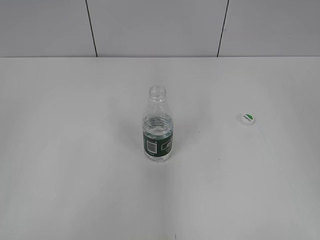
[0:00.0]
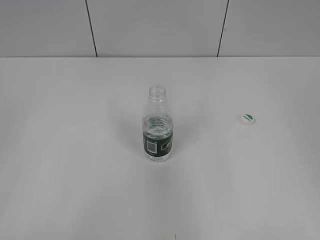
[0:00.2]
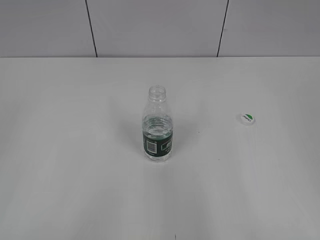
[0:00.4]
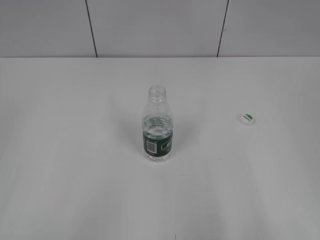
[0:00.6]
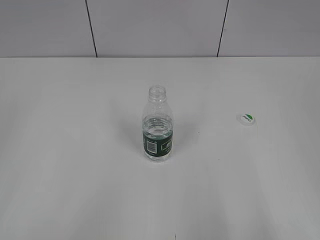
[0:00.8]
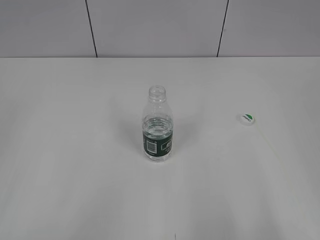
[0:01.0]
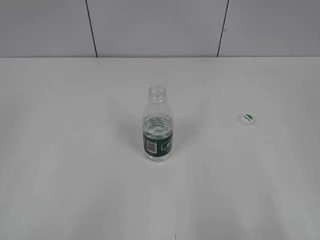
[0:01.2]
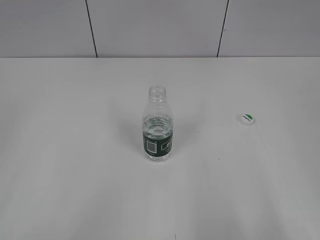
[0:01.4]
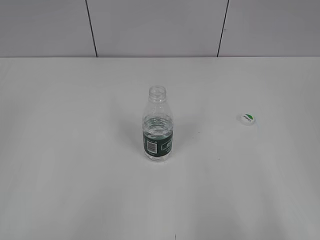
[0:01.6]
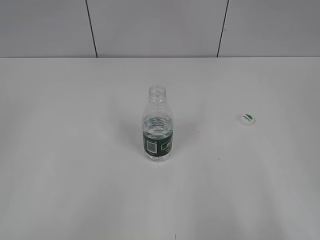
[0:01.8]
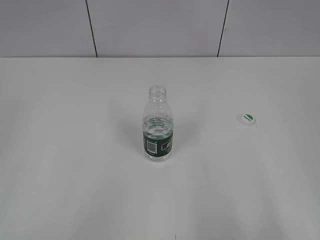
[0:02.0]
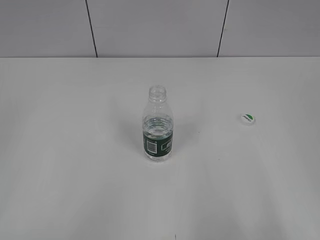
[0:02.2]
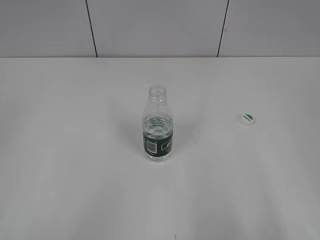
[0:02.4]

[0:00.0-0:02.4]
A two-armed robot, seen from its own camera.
0.0 to 1.2 s: The right gripper travels downward and backward by approximately 15 cm.
1.2 to 2.4 s: Neither gripper changes place.

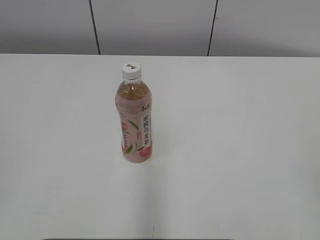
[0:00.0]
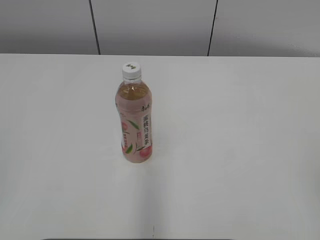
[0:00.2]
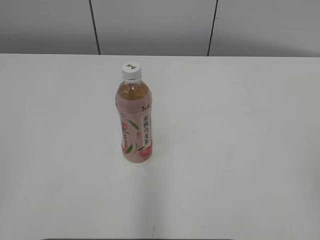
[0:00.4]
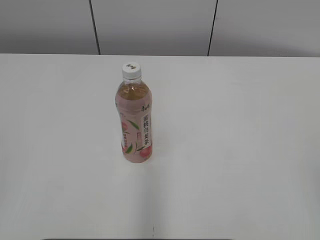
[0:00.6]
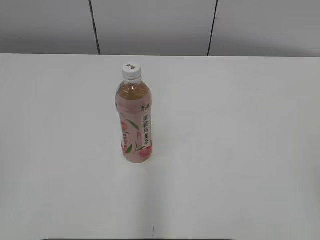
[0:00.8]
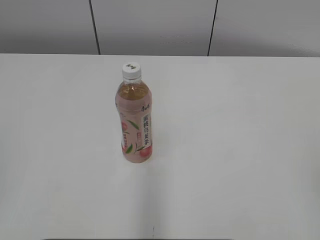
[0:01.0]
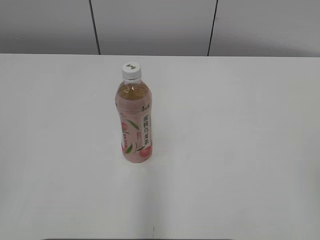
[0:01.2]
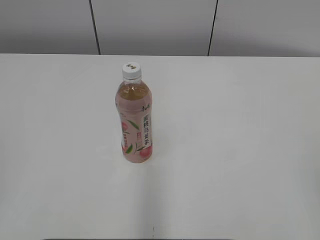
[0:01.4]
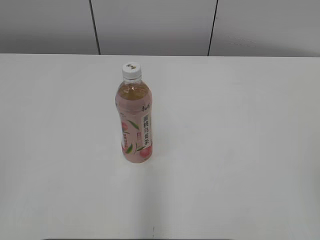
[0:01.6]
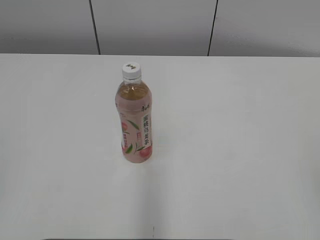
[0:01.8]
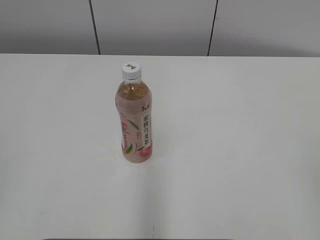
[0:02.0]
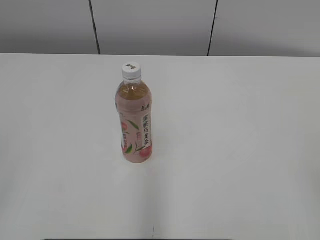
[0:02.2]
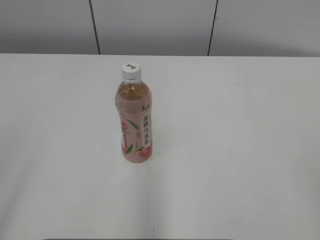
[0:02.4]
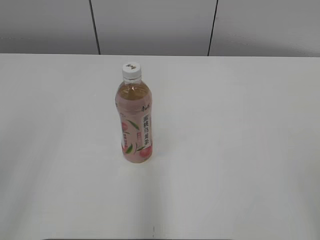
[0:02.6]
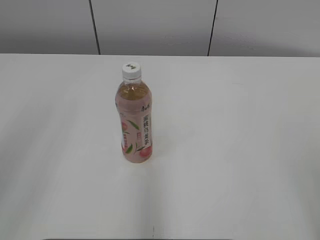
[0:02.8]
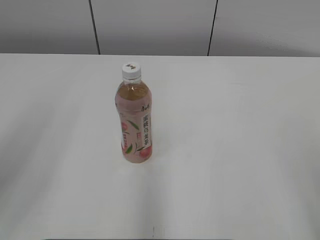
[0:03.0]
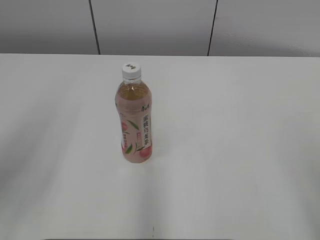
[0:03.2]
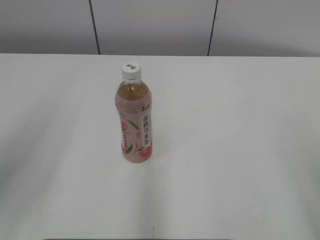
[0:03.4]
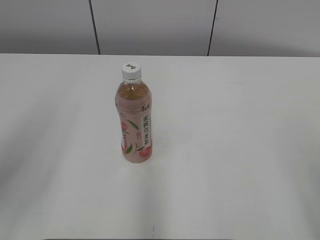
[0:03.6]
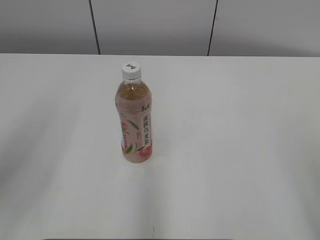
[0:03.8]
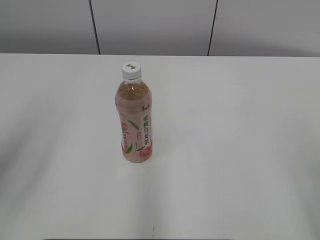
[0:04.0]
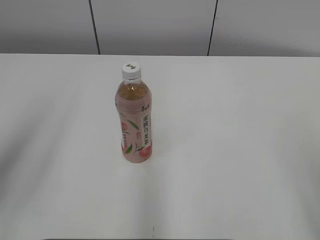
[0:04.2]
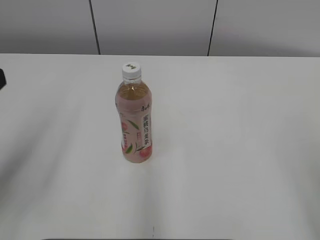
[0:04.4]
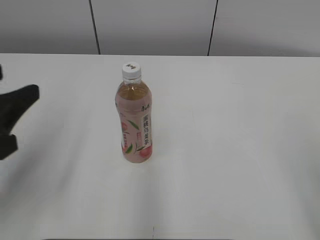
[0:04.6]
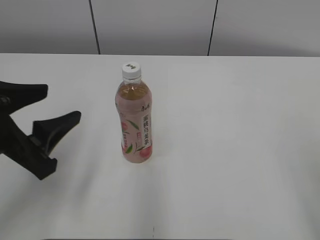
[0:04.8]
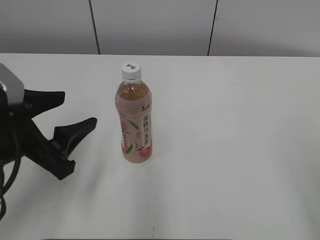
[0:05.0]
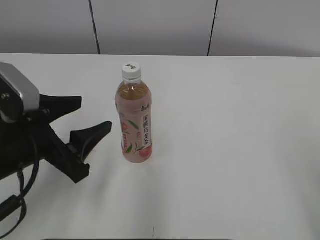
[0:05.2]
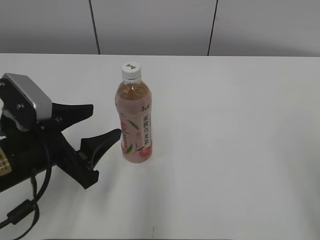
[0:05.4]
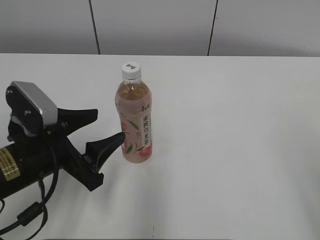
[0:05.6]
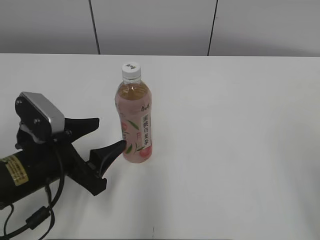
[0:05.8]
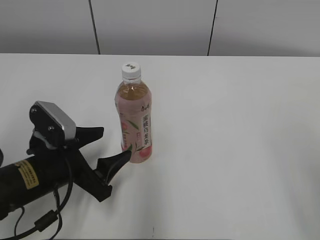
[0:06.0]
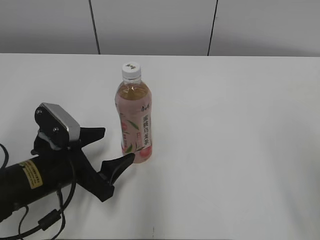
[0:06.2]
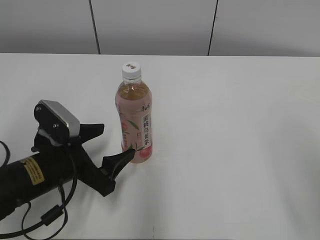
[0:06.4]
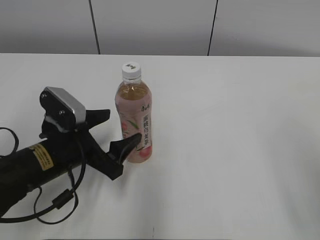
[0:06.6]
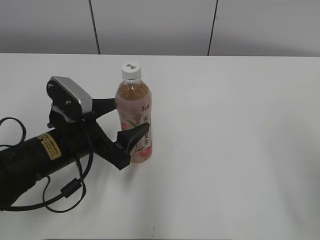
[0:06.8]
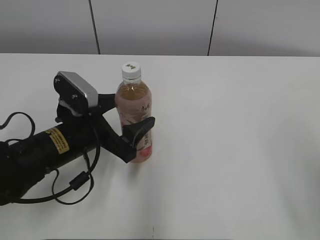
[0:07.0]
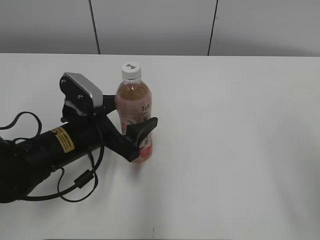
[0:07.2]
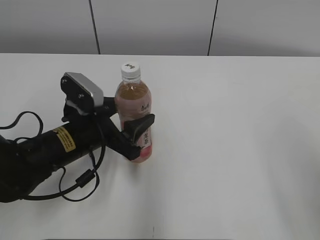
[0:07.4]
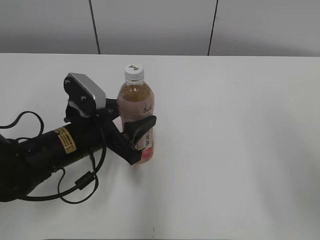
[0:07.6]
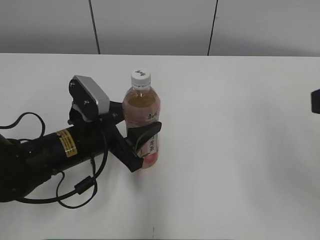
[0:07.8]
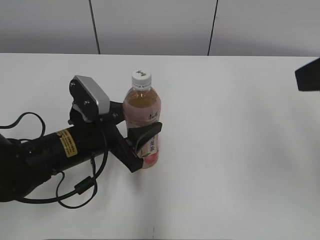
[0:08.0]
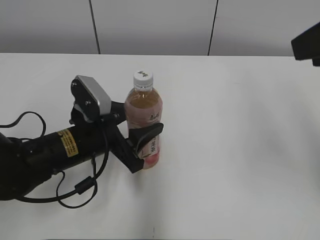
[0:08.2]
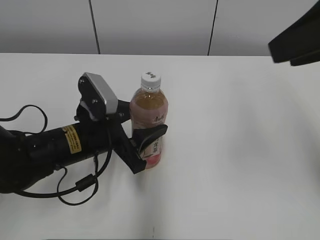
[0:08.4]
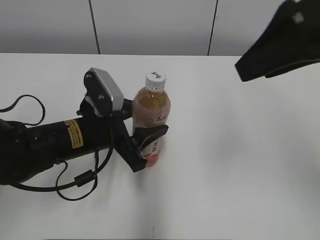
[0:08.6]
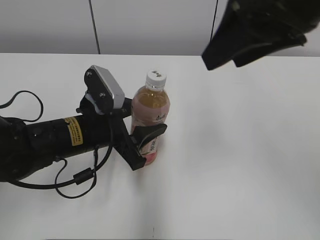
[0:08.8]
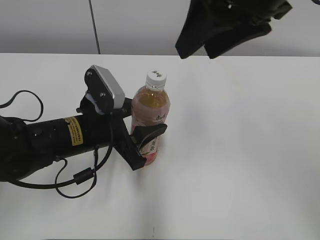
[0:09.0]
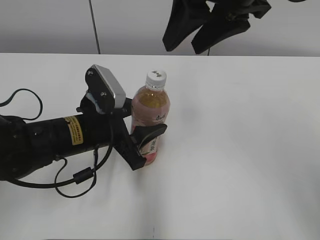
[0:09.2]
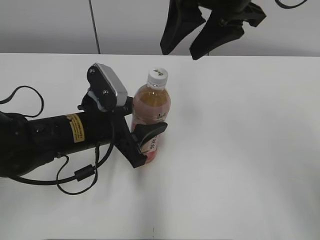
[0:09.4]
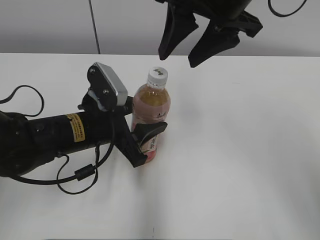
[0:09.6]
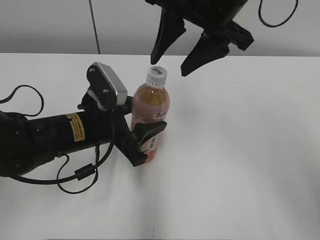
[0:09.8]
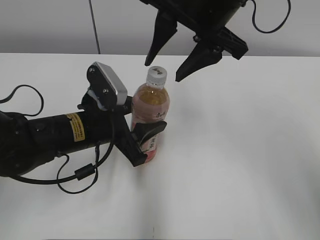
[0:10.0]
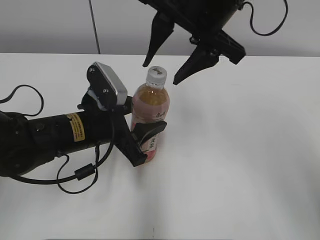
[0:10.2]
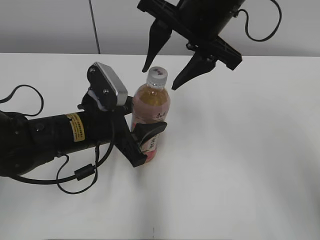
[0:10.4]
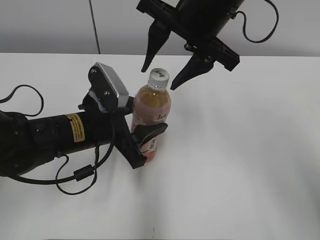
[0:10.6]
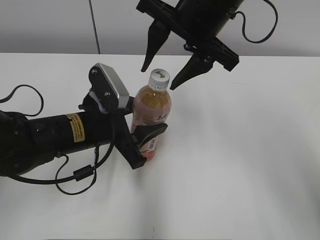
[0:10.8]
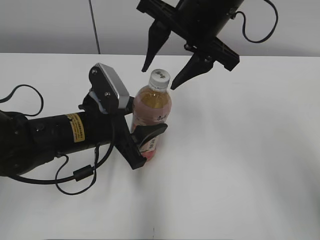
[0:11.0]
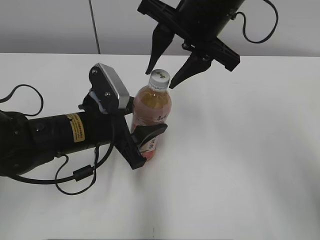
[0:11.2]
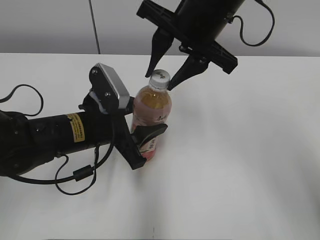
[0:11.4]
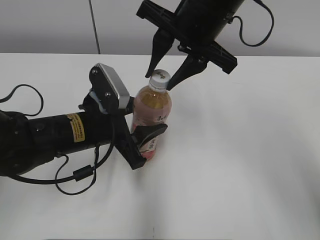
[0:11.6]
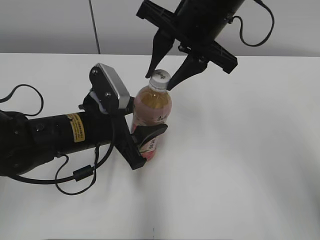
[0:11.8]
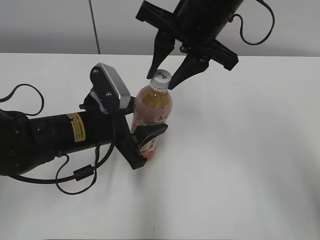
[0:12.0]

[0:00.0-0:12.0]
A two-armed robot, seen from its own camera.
Step, 0.0 to 7.4 s: Grab the Peach Oolong Tea with the left hand.
Step, 7.6 to 8.6 s: Move the Peach Oolong Tea from left to right.
1.6 to 3.0 s: The left gripper heads forward and to the right, covering approximately 10 cm.
4.4 to 6.0 s: The left gripper travels downward, to the right and forward by some 20 cm, and opens.
6.0 to 7.6 s: The left gripper is displaced forward by approximately 5 cm, and closes its fingers.
7.6 to 9.0 s: The right gripper shifts about 25 cm forward and to the left, and closes its fingers.
9.0 to 10.4 s: The right gripper heads forward and downward, covering approximately 10 cm.
10.4 to 12.0 s: The right gripper closes its fingers.

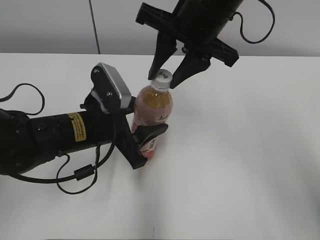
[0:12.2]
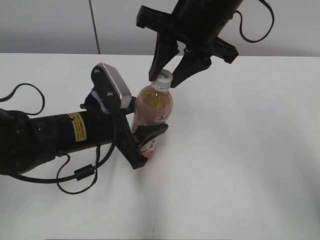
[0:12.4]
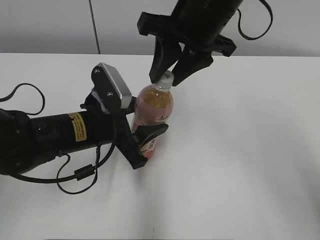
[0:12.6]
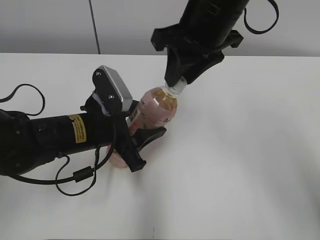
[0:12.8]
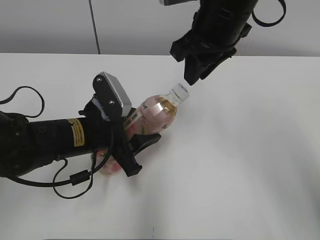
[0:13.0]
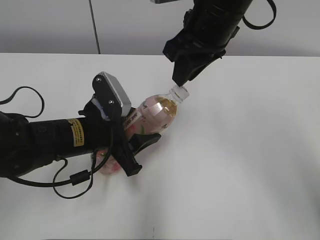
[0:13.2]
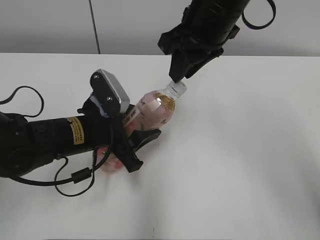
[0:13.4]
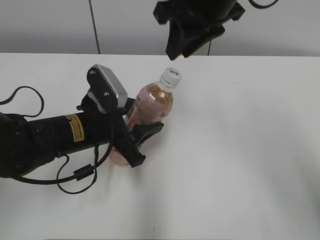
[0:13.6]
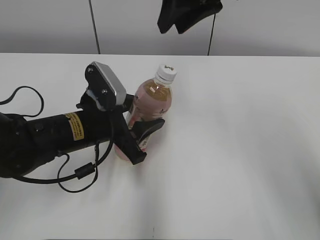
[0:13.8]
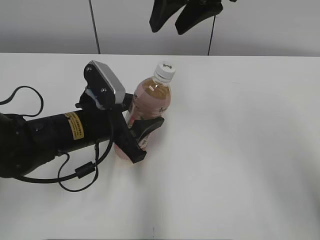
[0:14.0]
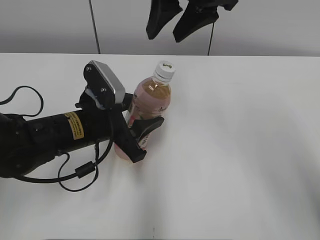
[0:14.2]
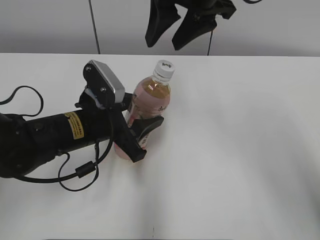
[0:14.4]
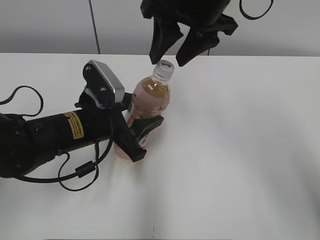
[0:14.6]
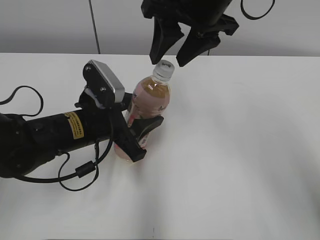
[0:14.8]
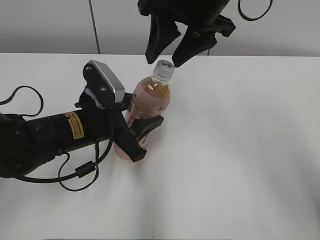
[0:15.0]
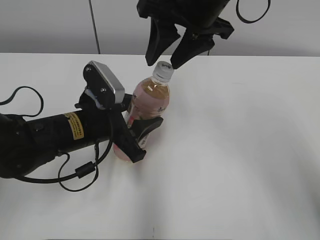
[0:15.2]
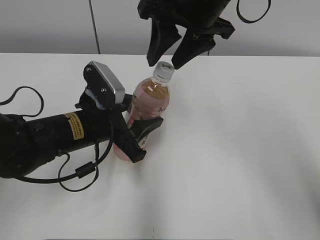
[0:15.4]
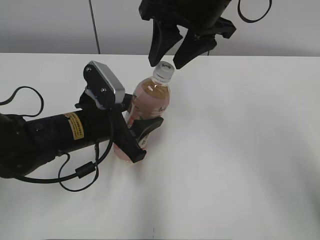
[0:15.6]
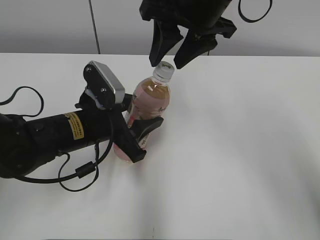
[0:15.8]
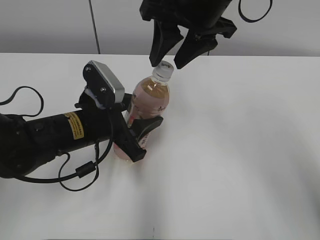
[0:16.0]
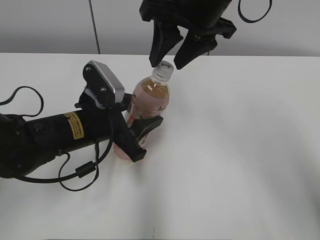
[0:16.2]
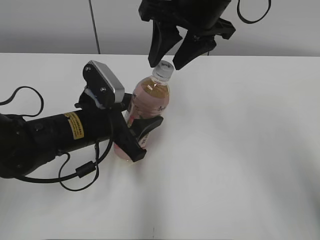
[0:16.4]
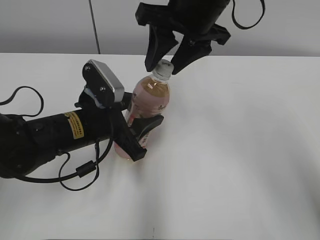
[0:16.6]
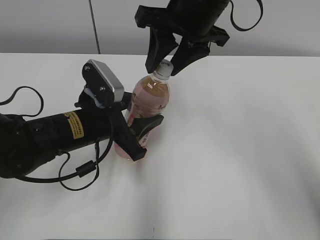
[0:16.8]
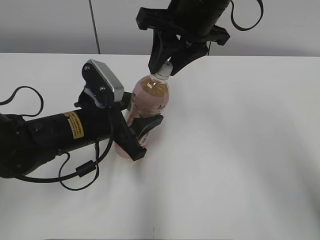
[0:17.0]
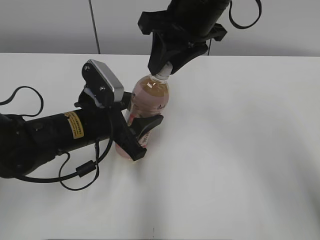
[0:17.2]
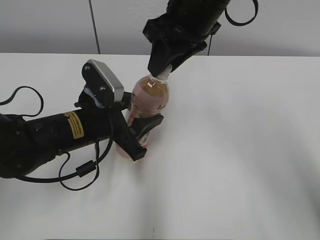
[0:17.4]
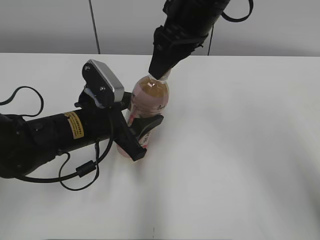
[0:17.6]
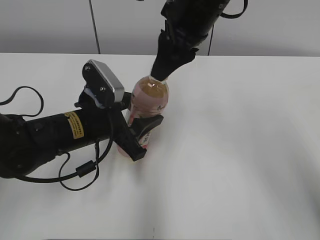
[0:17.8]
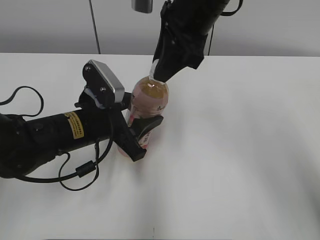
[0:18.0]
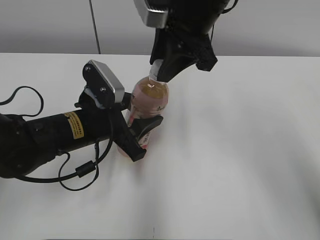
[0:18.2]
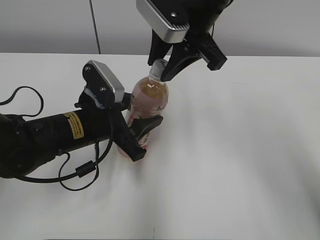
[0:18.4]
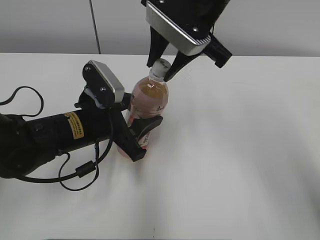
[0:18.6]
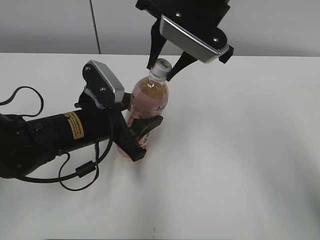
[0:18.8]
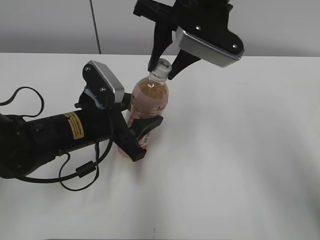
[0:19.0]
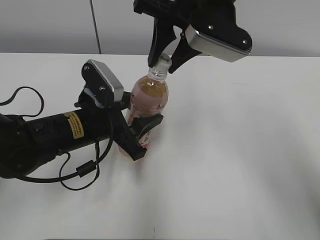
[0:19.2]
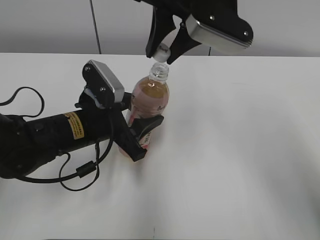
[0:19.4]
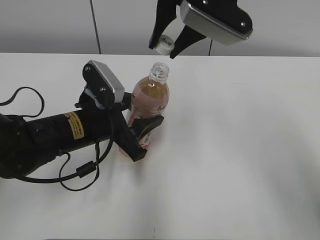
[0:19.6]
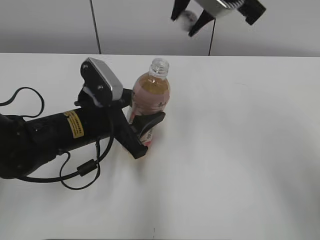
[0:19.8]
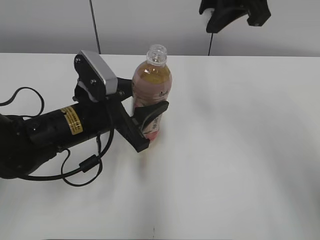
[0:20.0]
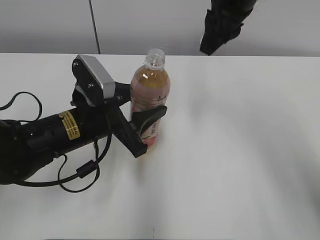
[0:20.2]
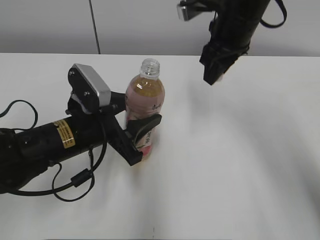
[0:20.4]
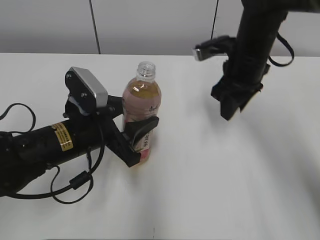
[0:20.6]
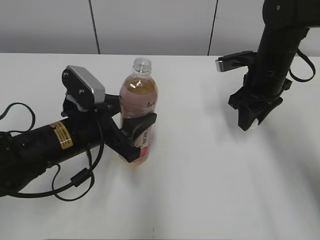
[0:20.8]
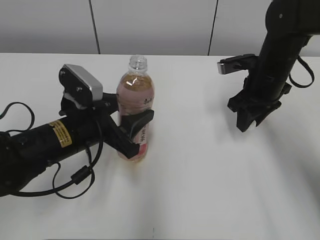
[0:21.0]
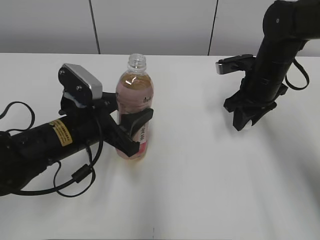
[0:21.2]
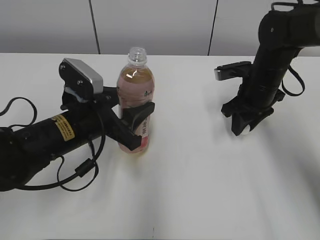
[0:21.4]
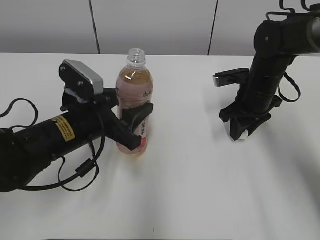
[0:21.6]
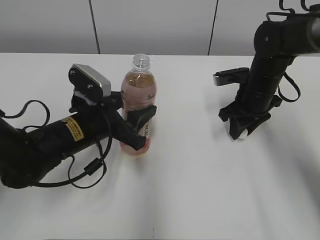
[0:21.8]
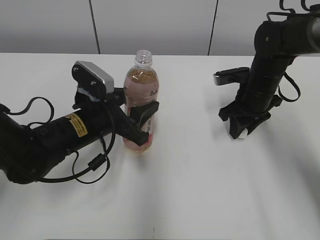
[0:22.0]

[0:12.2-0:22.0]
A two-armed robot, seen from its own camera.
Step, 12.2 to 19.0 s: Secure the Peach Oolong Tea with the left hand.
13.6 to 15.0 s: The right gripper opens up.
15.0 to 16.4 s: Both grippers stay put.
19.2 to 20.6 s: The right gripper moves downward and to the right, approximately 10 cm.
20.6 to 22.0 s: The right gripper travels downward and to the right by about 10 cm.
